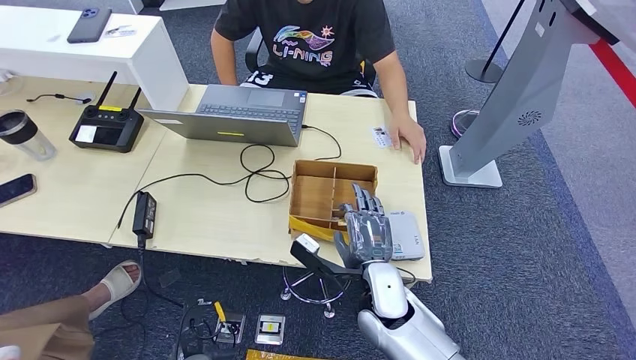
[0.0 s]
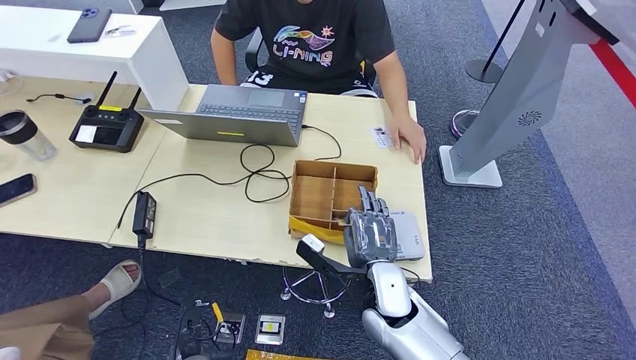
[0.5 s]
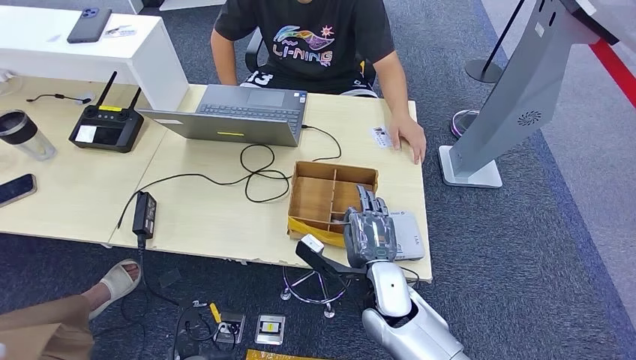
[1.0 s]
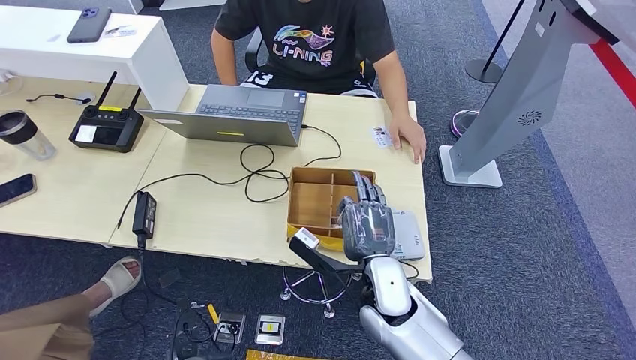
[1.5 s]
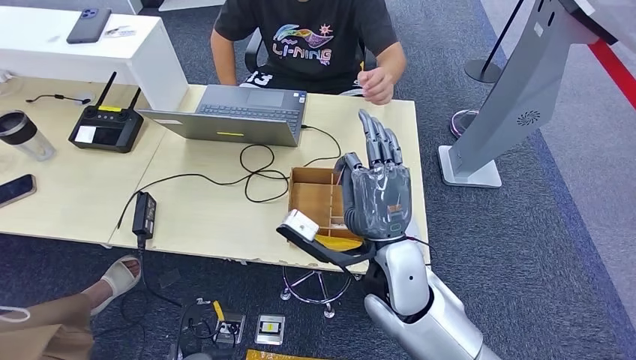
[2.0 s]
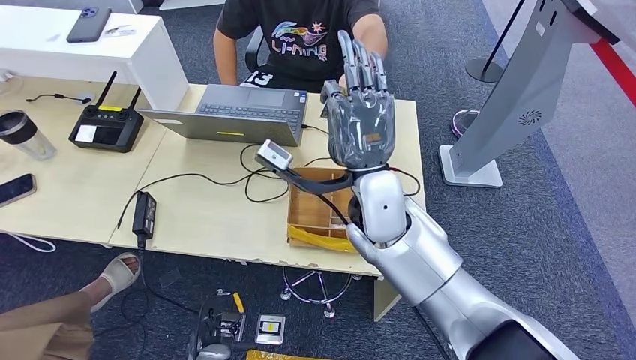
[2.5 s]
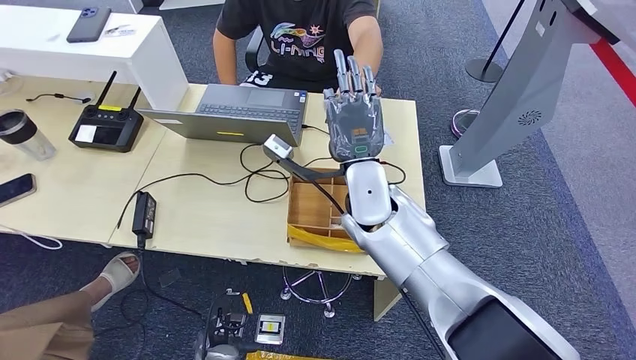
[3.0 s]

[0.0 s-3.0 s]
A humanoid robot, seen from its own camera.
Step, 2.0 to 3.0 s: Hand the room key to the person.
0.0 to 1.5 s: The hands make only small movements.
1.5 to 3.0 s: The left hand shifts about 5 cm to the right. Meanwhile the right hand moves upward and forward, some 15 cm.

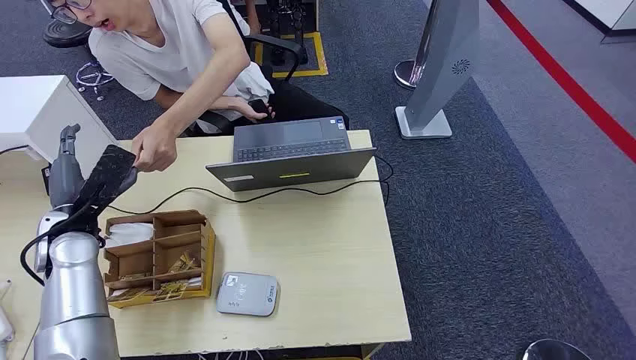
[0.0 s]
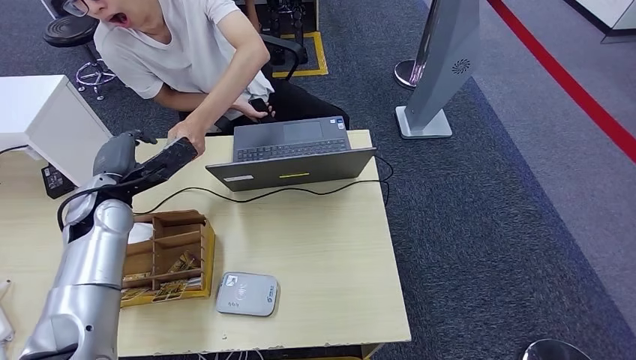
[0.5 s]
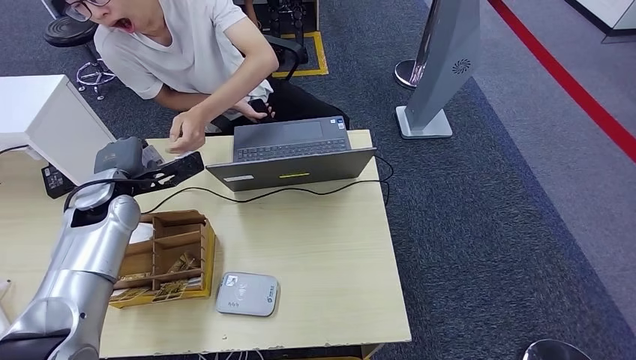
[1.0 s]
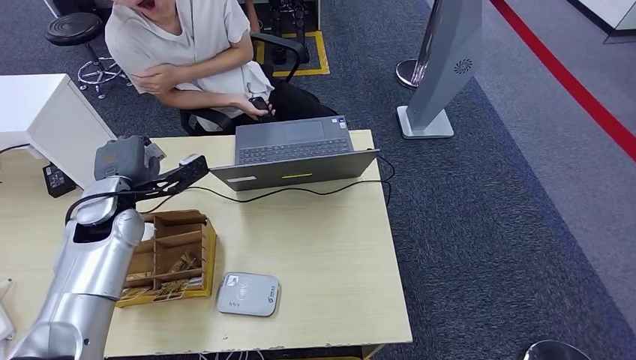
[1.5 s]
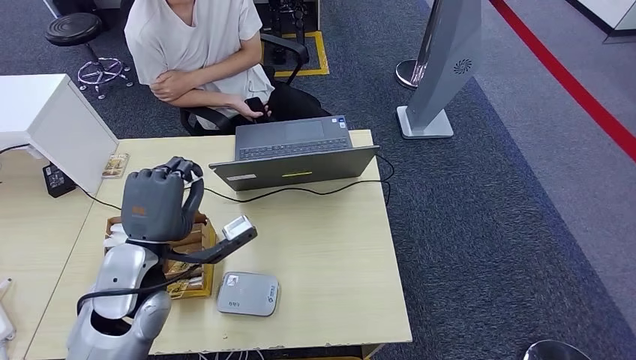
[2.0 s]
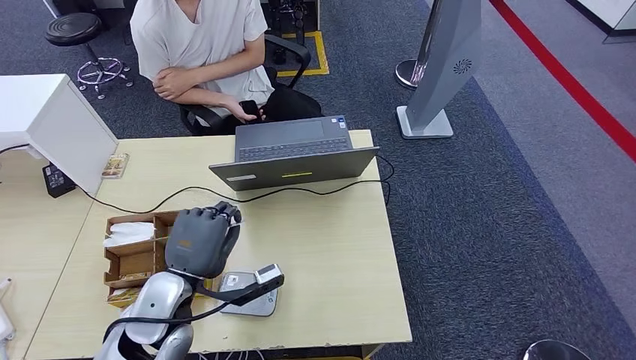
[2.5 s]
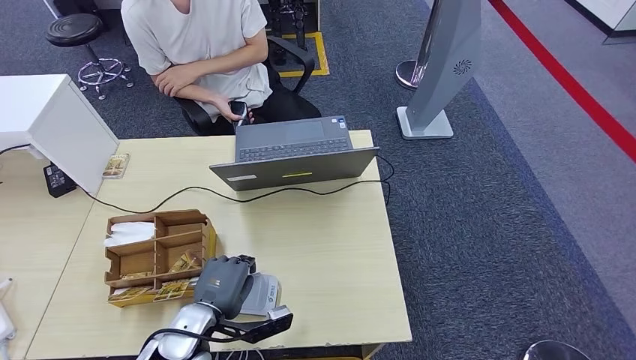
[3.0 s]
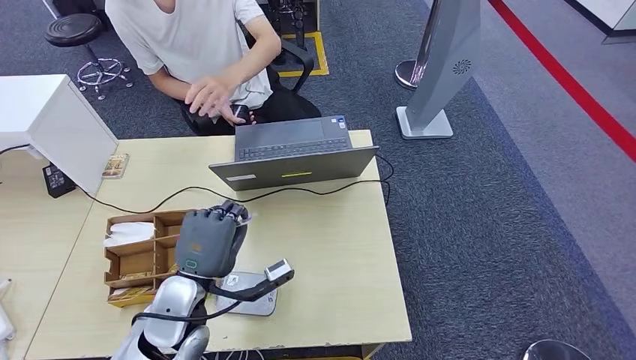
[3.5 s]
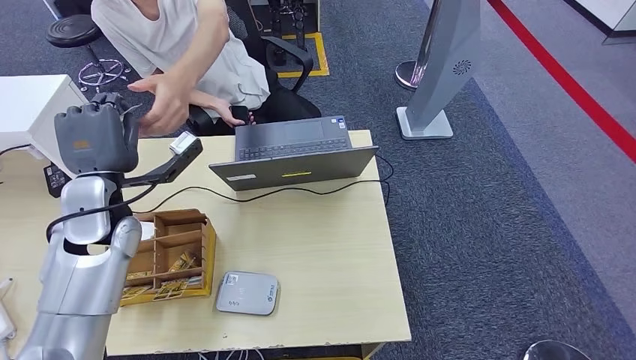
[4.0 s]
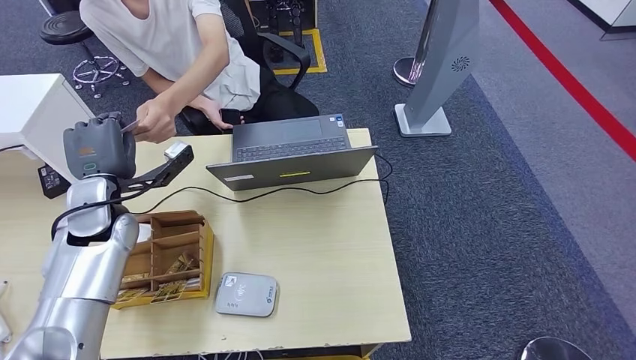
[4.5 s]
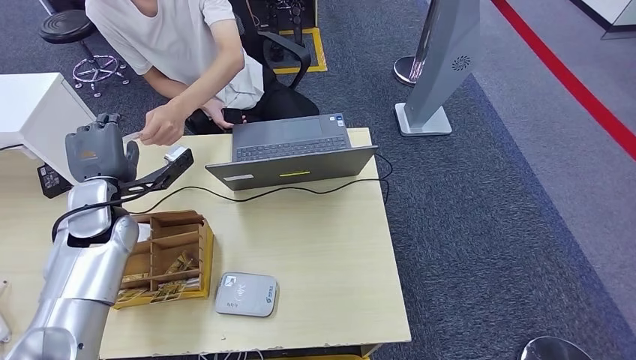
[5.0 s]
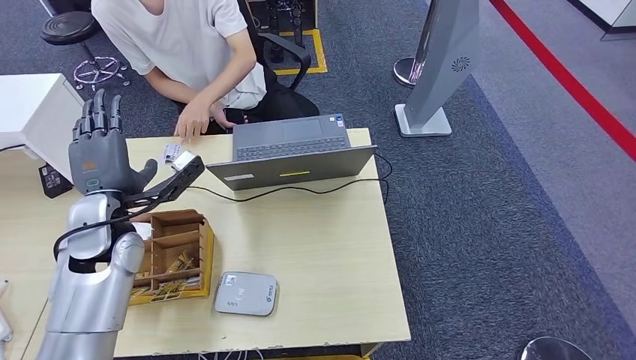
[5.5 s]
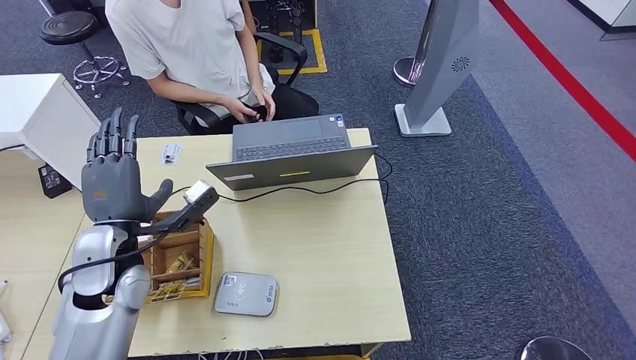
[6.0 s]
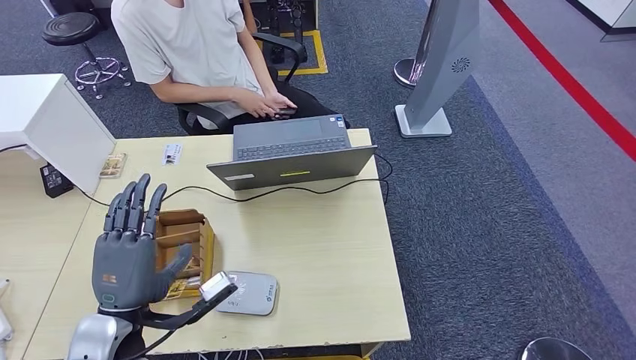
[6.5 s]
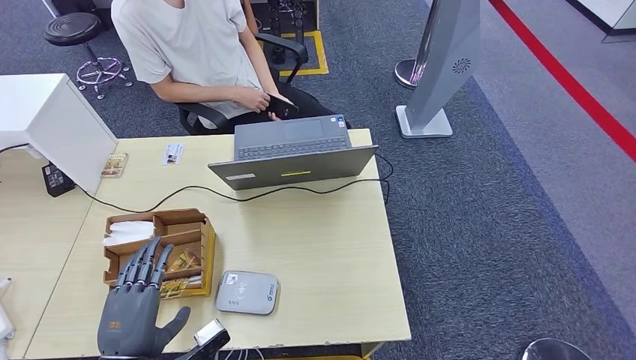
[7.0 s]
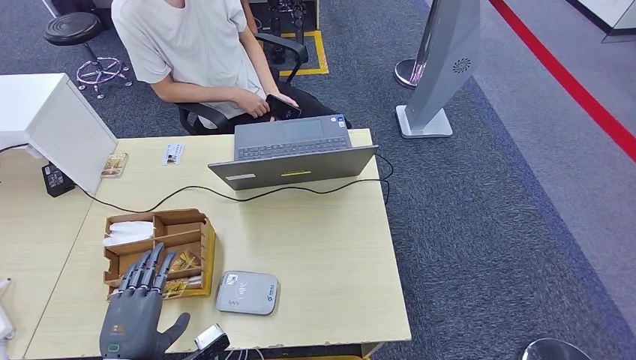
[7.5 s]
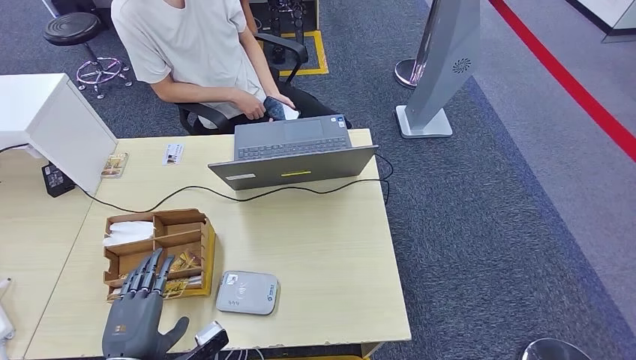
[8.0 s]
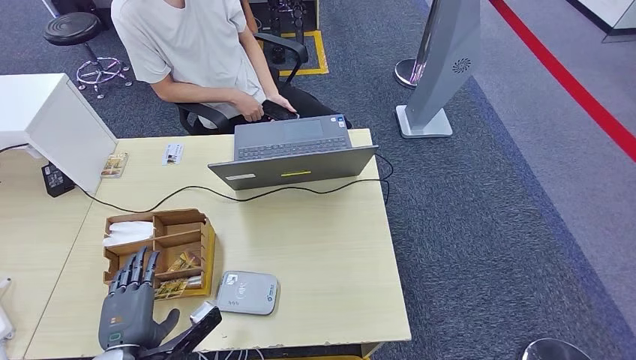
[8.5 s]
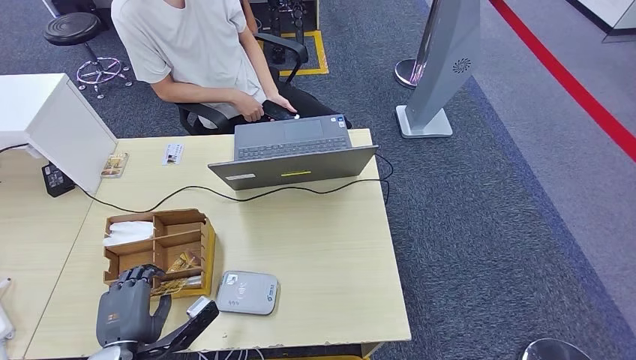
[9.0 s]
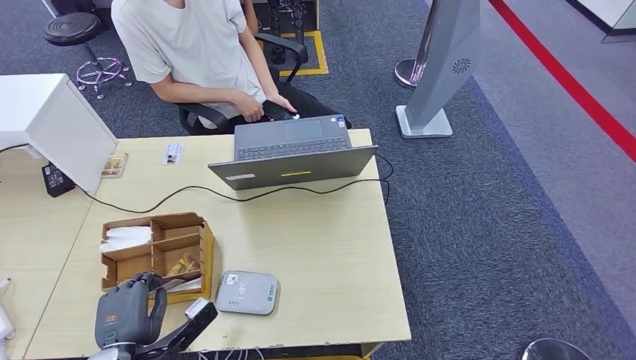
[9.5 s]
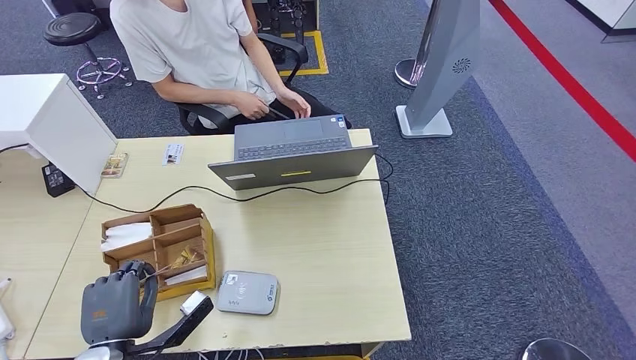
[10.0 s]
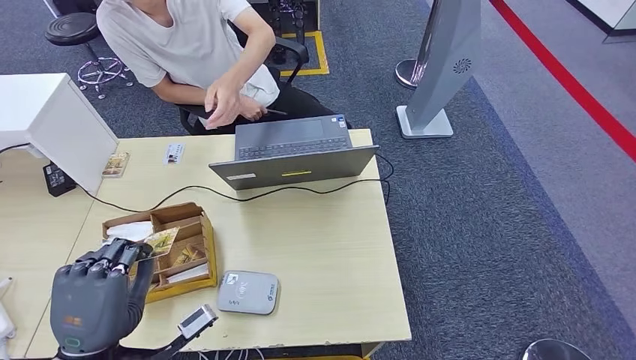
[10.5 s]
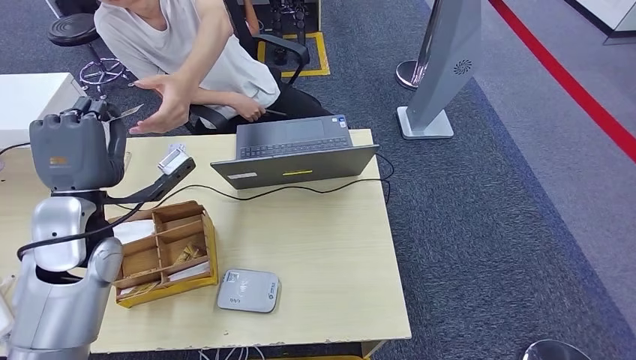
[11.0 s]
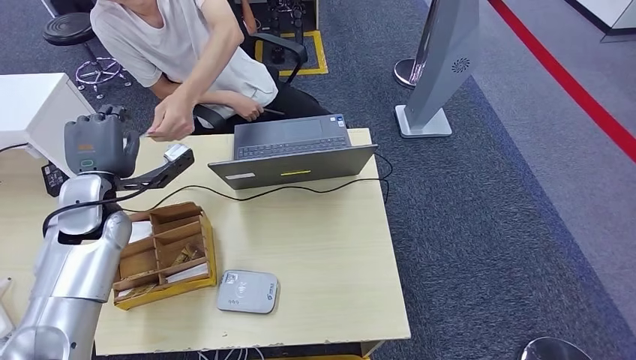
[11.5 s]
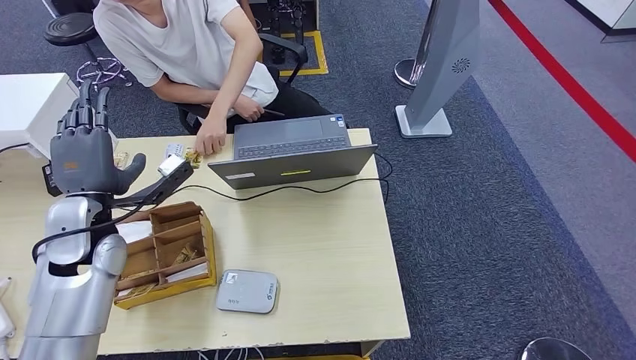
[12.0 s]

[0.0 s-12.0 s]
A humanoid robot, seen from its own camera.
Step, 0.0 to 1.0 s: Take the ID card from the person's hand.
Step, 1.5 to 4.0 s: Place the ID card on the card reader.
Step, 4.5 to 6.0 s: Hand the ID card to the person.
Step, 6.5 to 9.5 s: Pick up the room key from the key card box.
Step, 10.0 to 12.0 s: Hand the room key to the person.
6.0 to 8.0 s: The left hand travels backward and downward by approximately 20 cm.
8.0 to 10.0 s: The hands make only small movements.
10.0 to 12.0 s: The left hand heads forward and upward, covering approximately 25 cm.
